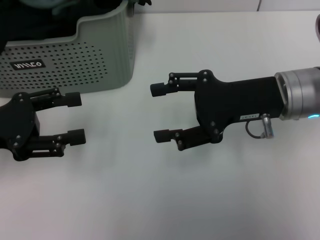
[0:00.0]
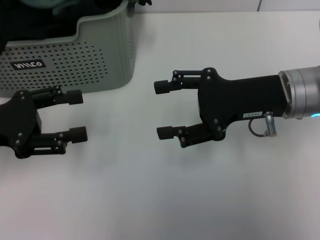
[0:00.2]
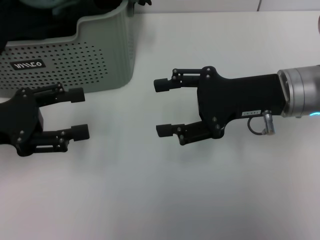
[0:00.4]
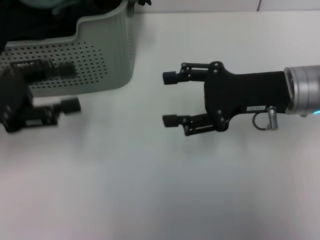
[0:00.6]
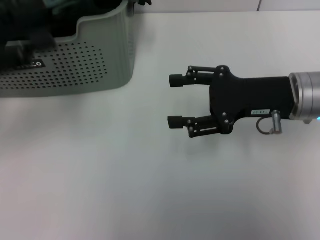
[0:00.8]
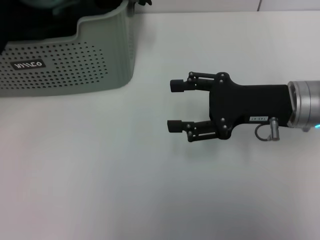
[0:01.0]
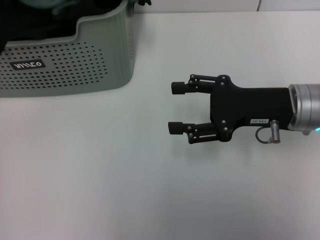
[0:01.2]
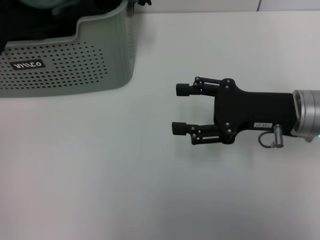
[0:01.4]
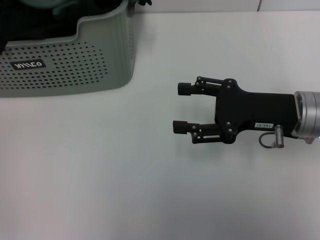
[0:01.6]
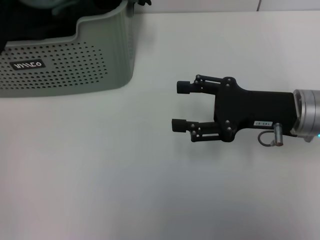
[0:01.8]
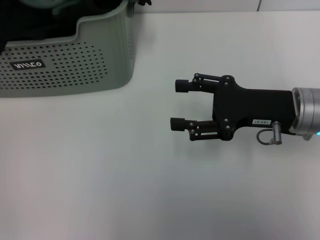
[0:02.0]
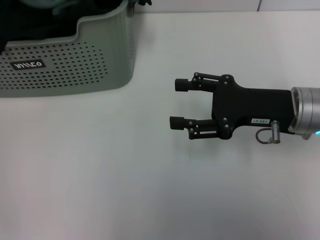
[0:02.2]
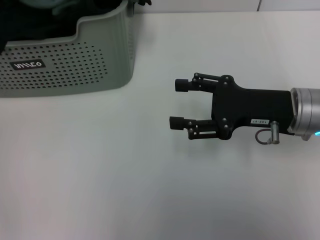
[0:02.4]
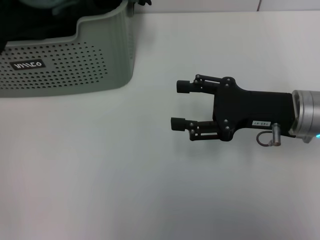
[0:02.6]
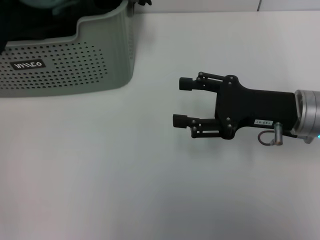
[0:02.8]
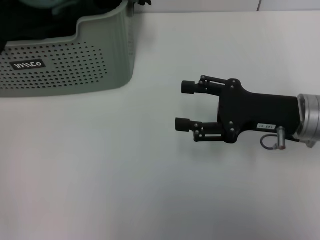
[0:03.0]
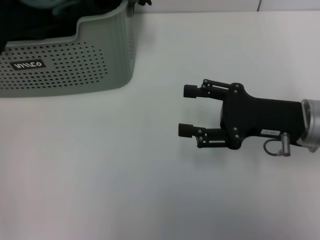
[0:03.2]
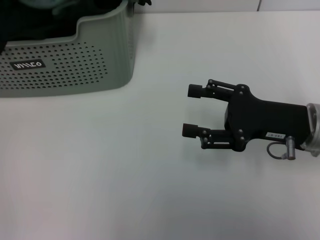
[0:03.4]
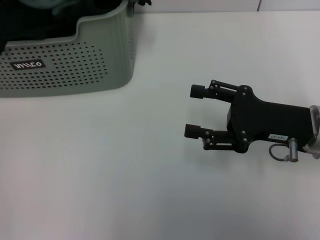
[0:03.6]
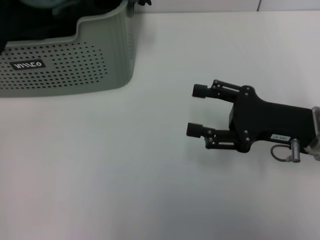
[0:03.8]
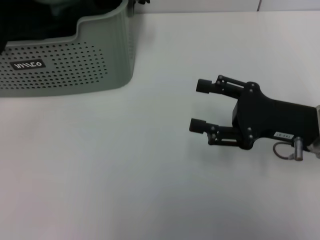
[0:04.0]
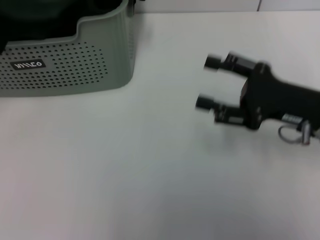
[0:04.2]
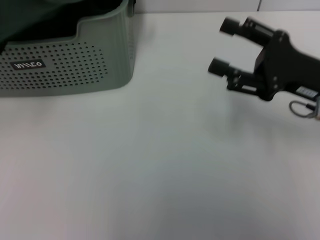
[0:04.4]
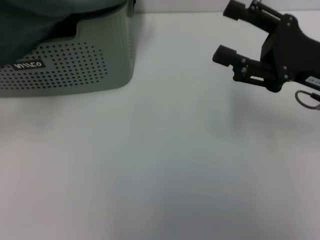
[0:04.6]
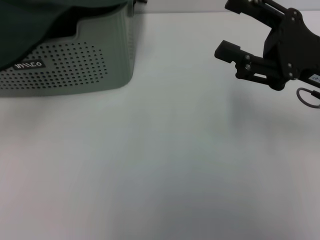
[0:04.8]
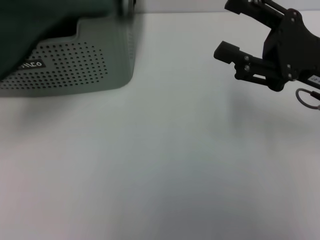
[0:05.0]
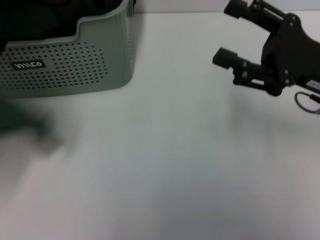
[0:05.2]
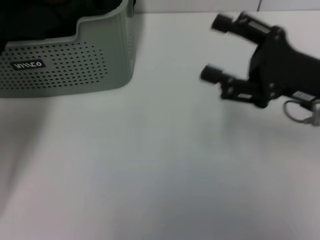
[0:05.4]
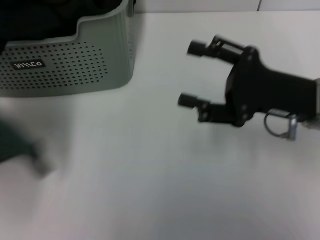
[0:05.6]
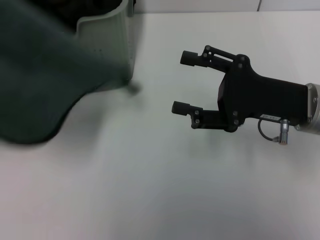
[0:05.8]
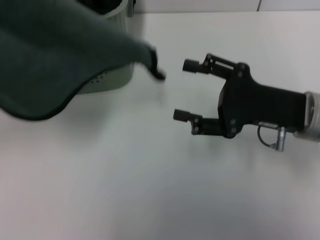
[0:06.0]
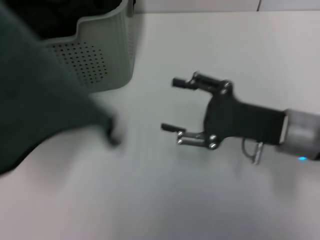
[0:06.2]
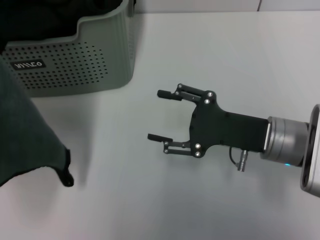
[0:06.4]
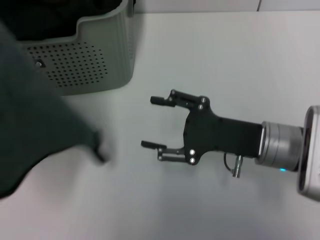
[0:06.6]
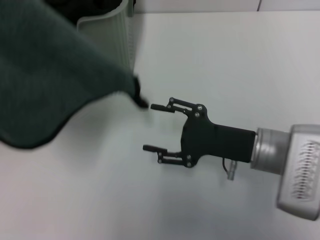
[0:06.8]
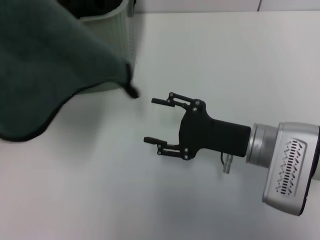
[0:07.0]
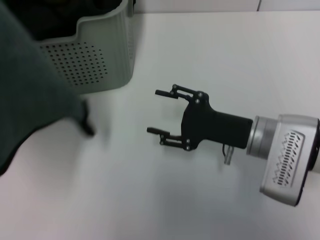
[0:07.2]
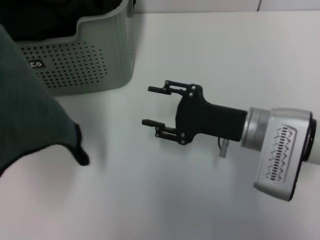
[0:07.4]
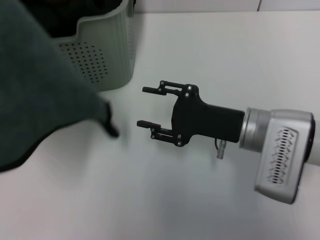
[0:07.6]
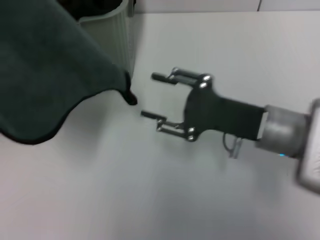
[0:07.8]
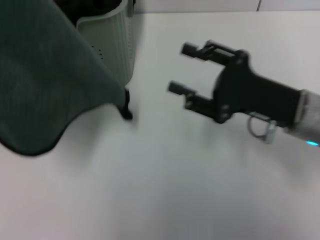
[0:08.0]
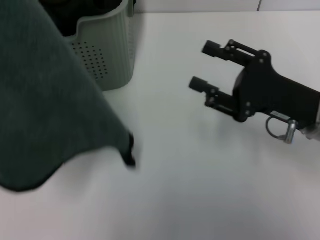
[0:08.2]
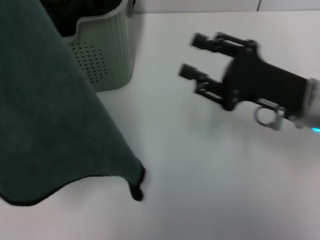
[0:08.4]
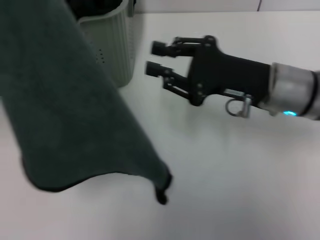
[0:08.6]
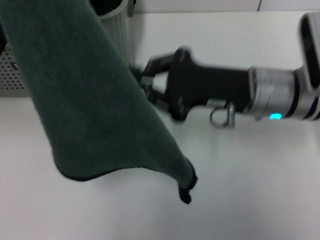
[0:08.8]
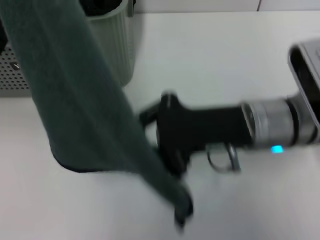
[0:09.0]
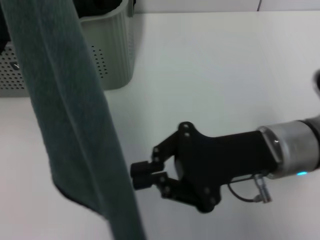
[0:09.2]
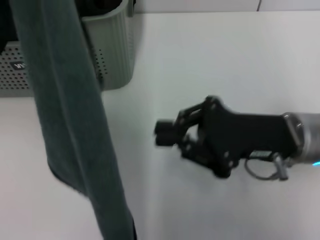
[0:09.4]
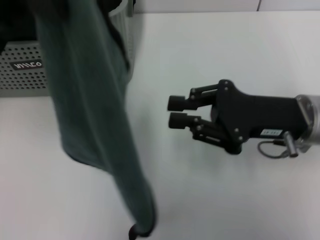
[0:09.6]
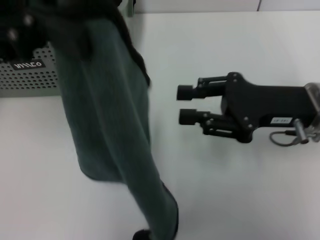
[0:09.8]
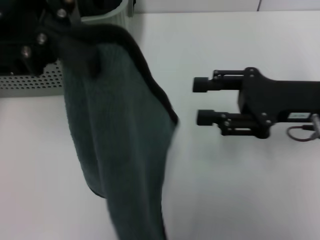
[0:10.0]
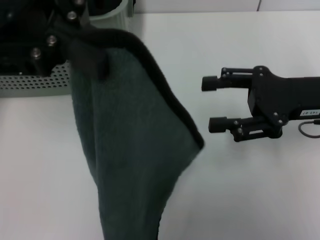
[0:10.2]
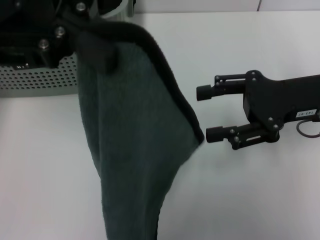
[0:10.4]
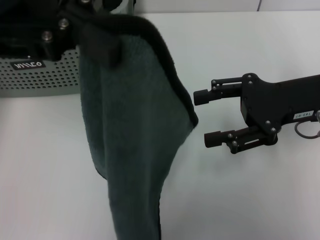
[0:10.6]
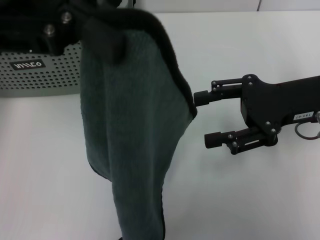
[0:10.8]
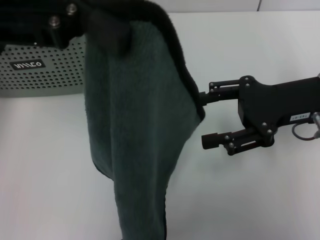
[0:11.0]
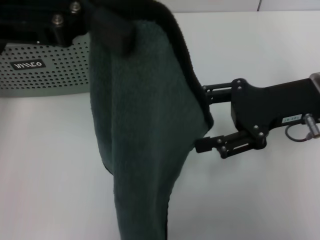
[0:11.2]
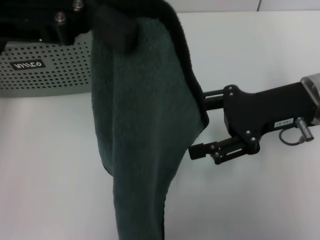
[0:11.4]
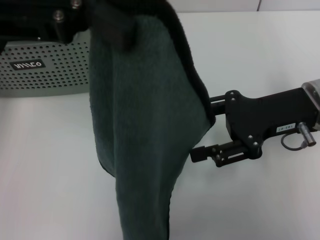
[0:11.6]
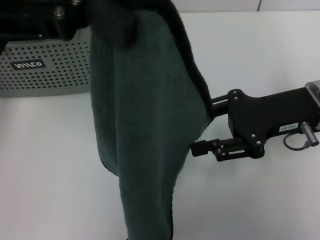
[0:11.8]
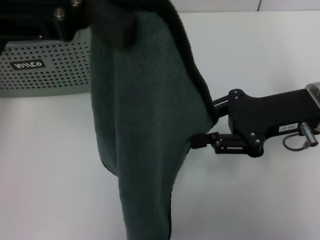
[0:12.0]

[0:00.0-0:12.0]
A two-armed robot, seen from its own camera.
Task of the whole recording: pick up the towel from the storage box and lay it flat on the table.
Step, 0:00.0 to 0:03.4: Pick up a towel with the left gripper.
0:00.0 to 0:01.6: The left gripper goes some 20 cm forward and upward.
0:01.6 to 0:03.0: The grippers make only small movements.
0:03.0 to 0:04.4: The left gripper travels backward by about 15 cm, and closes.
0:06.0 to 0:07.6: The right gripper goes some 5 cm to the left.
0:07.6 to 0:09.0: The left gripper moves about 5 cm. The right gripper moves about 5 cm to the right and comes back, and closes up.
0:09.0 to 0:10.4: The two grippers go some 10 cm to the right. The right gripper opens its fingers.

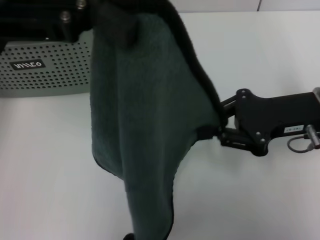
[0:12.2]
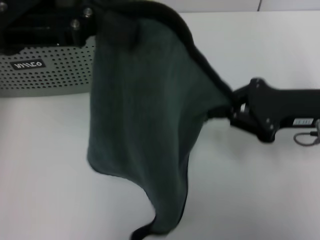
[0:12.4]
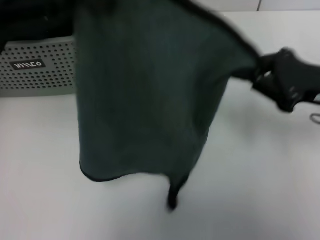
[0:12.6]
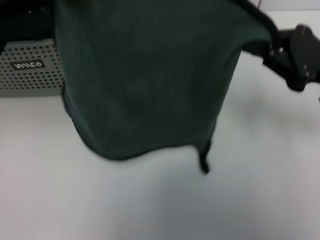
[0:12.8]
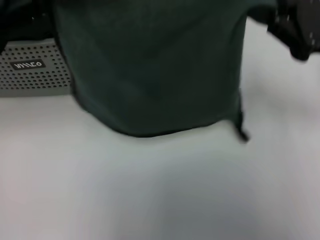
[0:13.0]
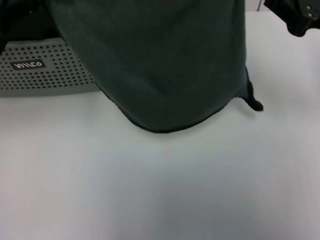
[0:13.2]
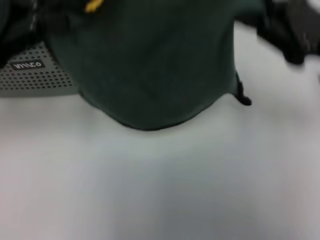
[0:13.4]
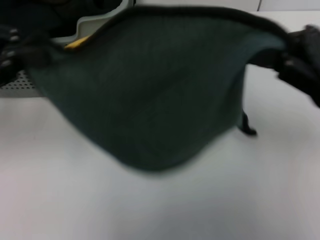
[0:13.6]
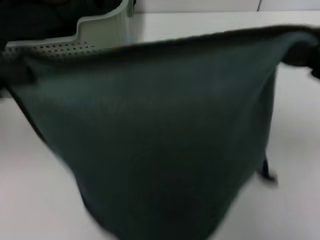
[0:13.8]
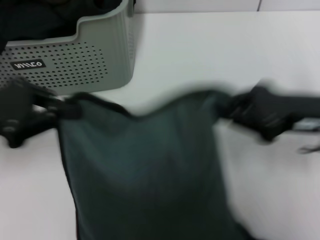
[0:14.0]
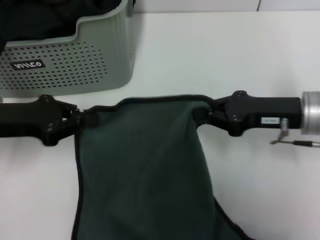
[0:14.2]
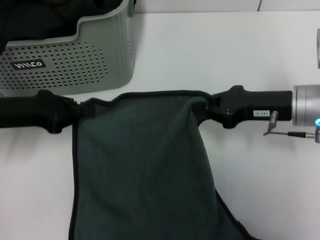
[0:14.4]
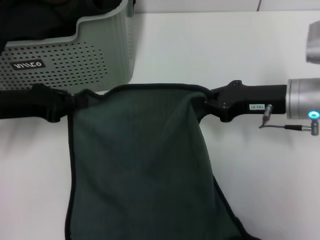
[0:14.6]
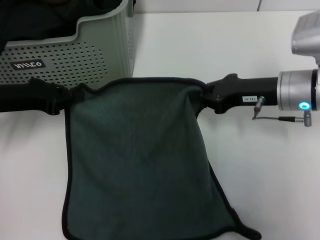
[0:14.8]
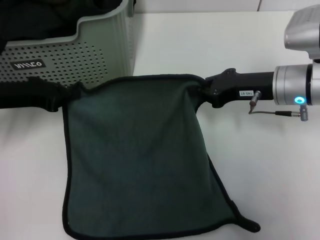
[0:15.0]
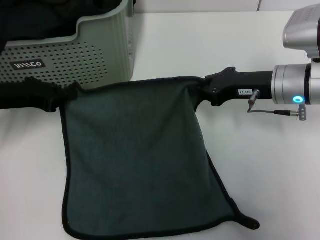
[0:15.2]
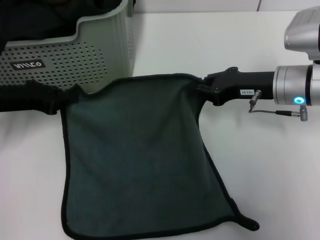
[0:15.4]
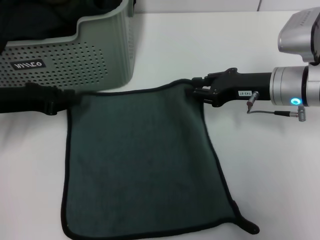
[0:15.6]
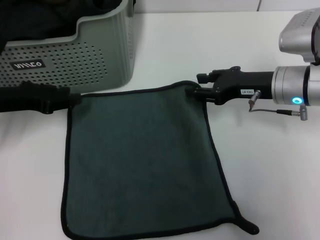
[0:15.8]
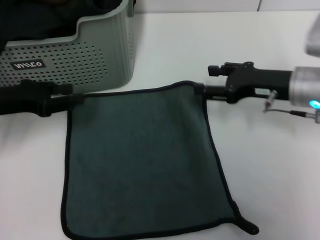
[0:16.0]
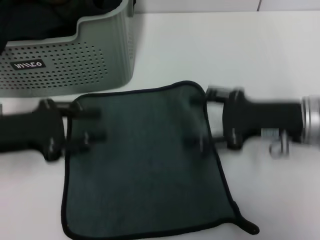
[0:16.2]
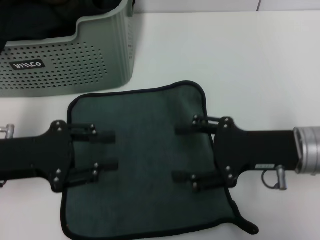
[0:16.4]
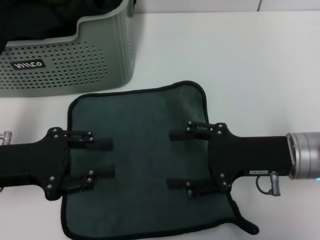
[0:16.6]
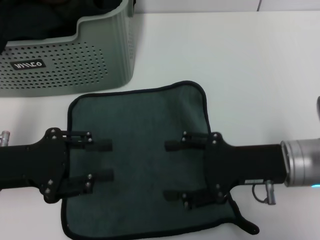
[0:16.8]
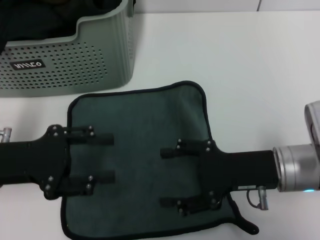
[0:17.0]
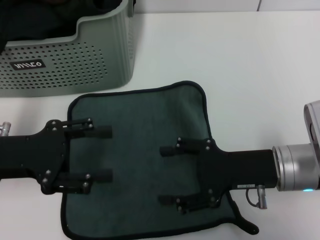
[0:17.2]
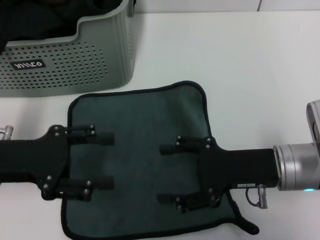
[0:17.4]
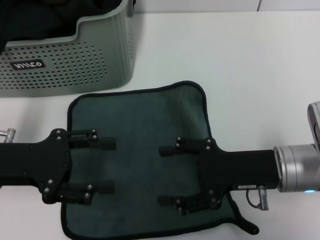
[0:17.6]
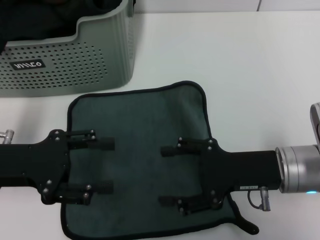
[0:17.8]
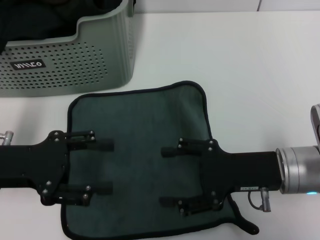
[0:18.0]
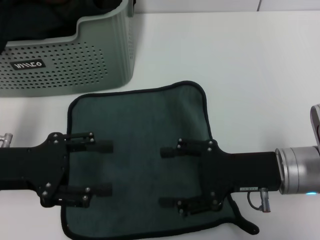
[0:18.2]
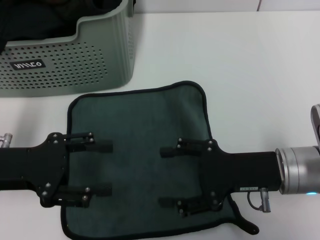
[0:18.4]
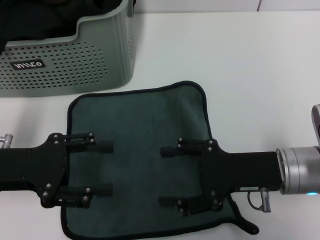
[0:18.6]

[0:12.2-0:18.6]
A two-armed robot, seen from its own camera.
Task of the whole recording: pick up the towel from the storage box and lay it flat on the table.
Step, 0:12.4 to 0:15.8: Spread the towel flat with the right gripper.
0:12.2 to 0:13.8: The left gripper heads downward, to the left and backward, covering about 20 cm. Meanwhile the right gripper goes some 10 cm upward, backward and to the right, and closes.
0:13.8 to 0:15.4: The right gripper shifts about 20 cm forward, downward and to the left; the left gripper moves downward and forward, some 15 cm.
0:15.4 to 0:17.0: The two grippers go some 10 cm backward. The left gripper opens up, while the right gripper opens its fingers.
0:17.0 to 0:18.6: The grippers move only a little.
